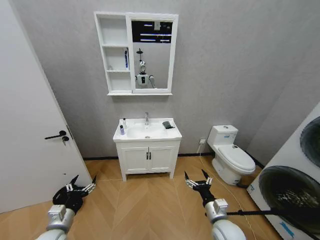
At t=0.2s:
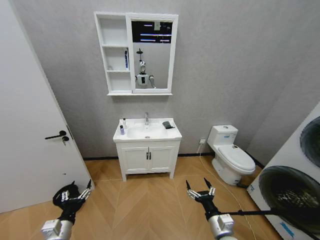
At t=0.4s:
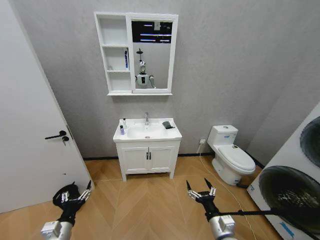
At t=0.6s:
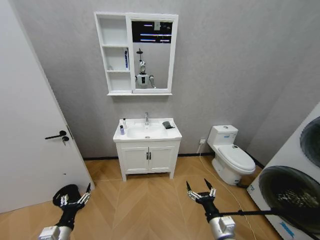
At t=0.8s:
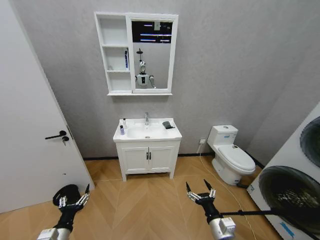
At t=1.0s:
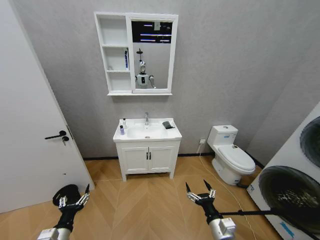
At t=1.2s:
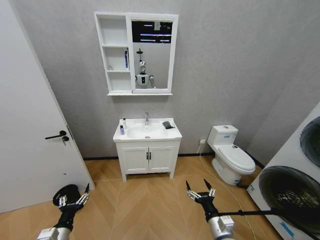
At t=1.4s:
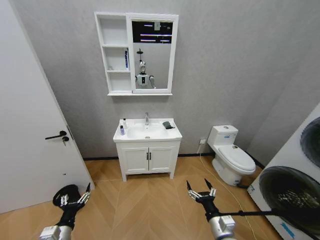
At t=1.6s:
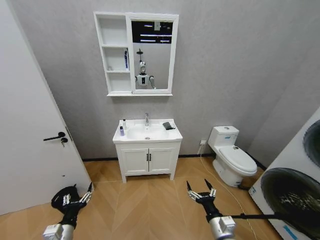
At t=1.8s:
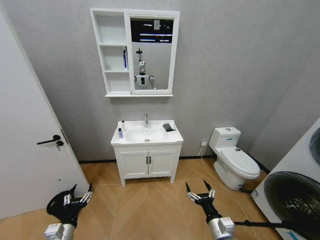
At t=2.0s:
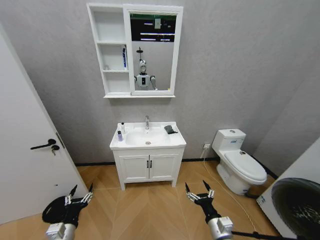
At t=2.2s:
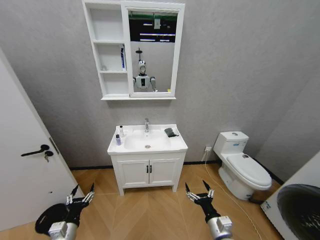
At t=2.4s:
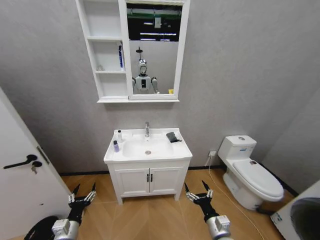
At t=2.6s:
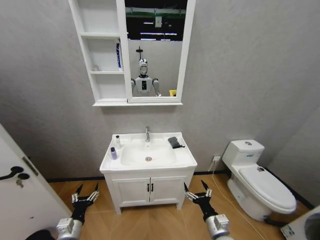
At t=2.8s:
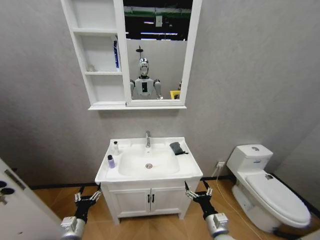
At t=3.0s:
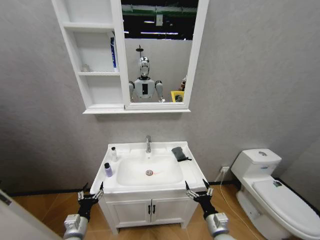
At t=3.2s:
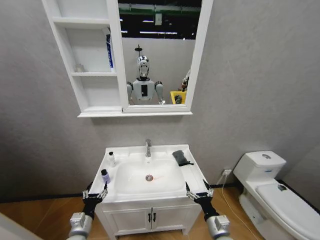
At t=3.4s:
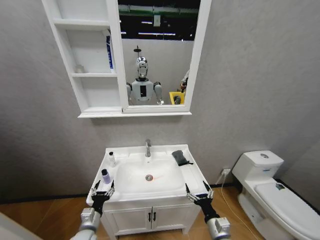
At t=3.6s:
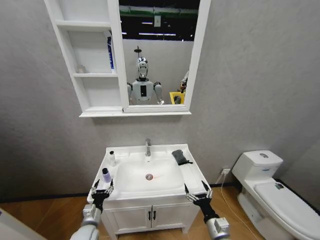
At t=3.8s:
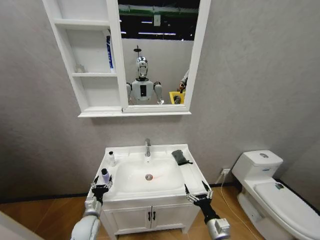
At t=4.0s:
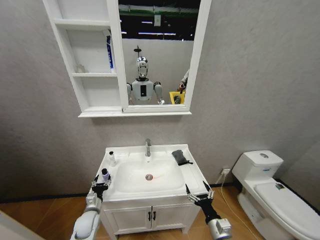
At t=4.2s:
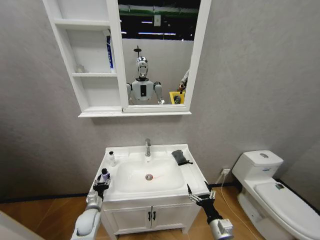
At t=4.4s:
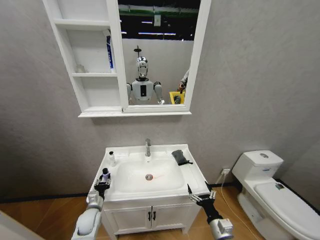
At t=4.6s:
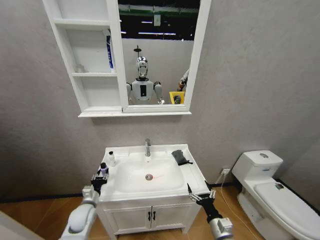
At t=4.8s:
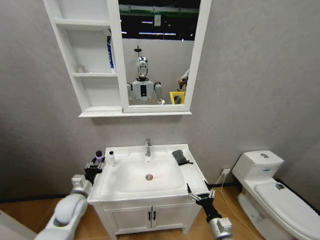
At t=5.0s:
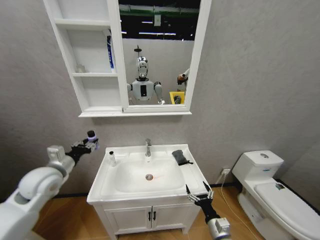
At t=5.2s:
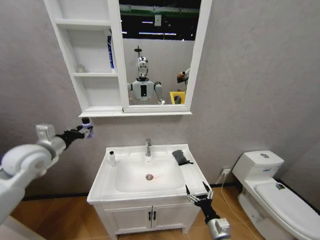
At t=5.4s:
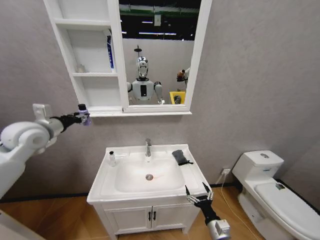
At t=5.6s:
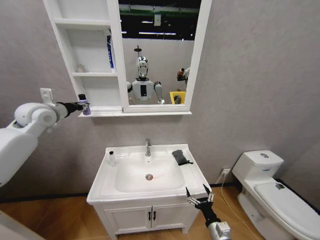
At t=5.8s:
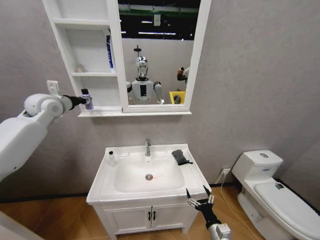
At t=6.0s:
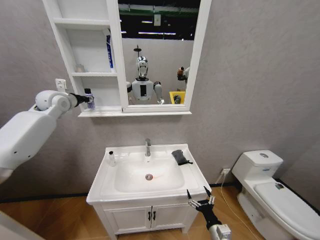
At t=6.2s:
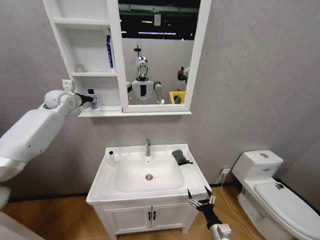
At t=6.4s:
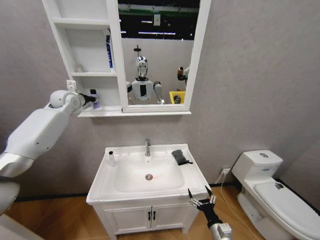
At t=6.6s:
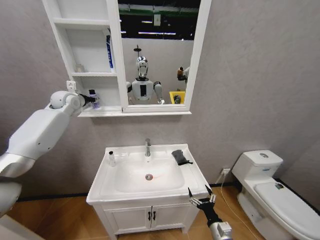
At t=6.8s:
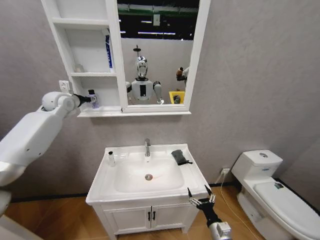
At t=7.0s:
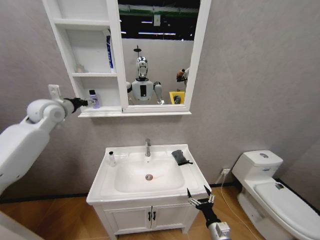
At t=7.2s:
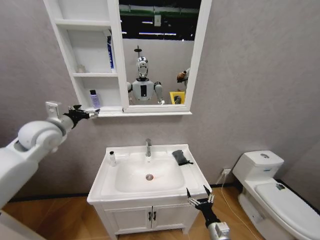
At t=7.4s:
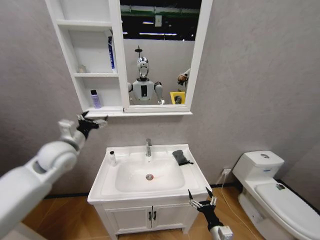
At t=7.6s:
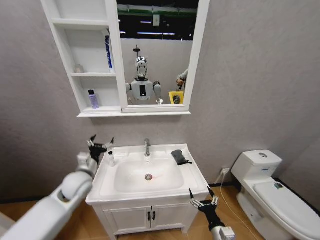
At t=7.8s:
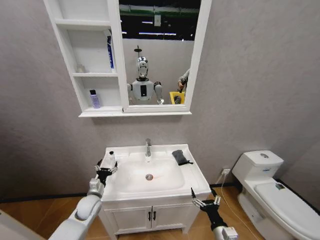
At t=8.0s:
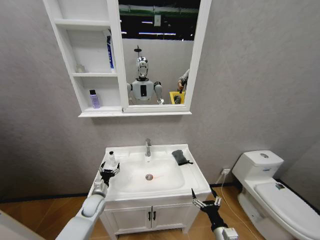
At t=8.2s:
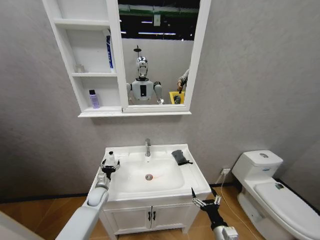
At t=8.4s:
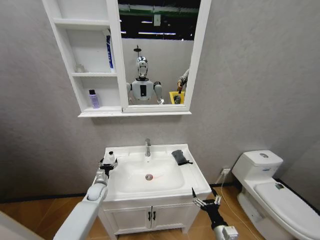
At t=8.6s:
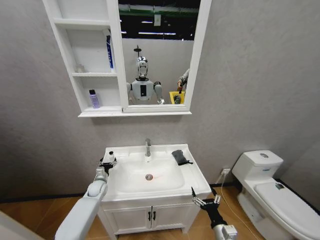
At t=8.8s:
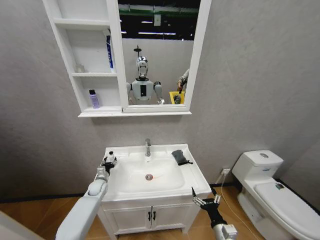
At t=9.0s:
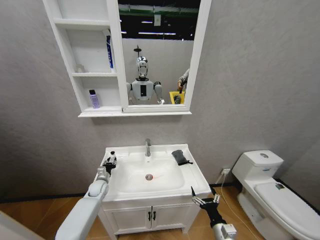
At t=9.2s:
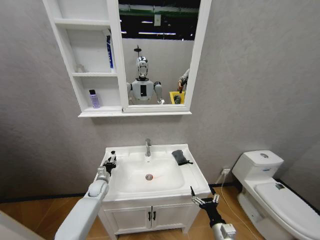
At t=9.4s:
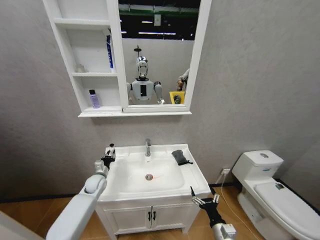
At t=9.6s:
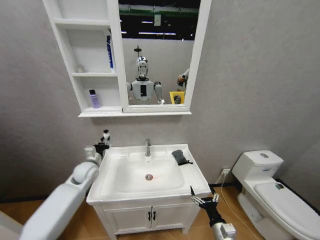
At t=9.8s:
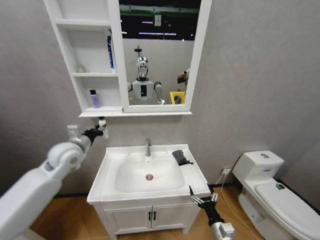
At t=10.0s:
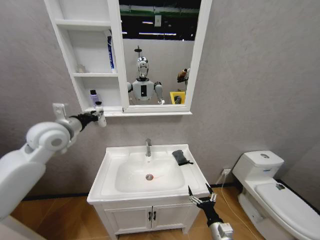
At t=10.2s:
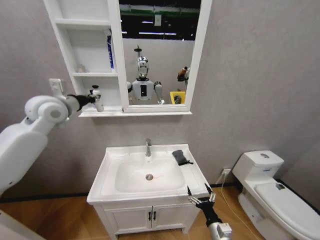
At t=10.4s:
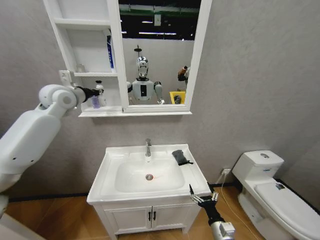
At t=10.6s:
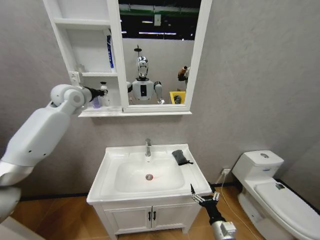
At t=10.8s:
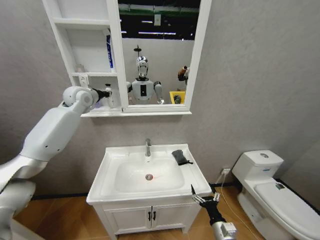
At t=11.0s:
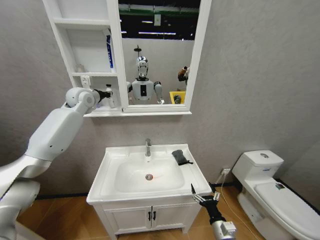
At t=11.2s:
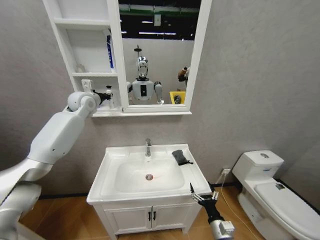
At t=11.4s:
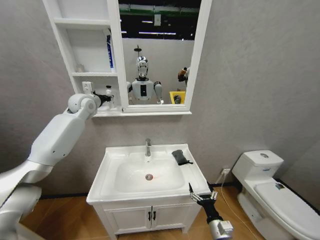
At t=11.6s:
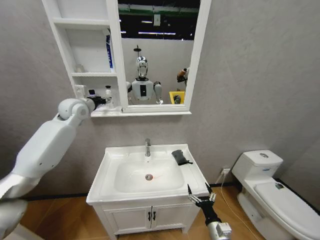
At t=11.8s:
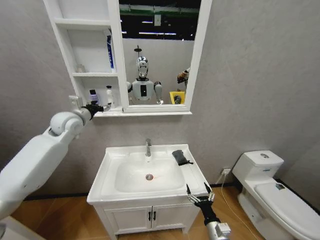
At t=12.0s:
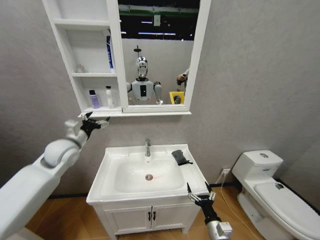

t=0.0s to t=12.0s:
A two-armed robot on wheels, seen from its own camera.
Task of the whole recording: Move facial cleanser and shampoo from washbasin to cabinet, then wipe washbasin with towel.
t=3.0s to t=4.4s: The left gripper moves forward, roughly 10 cm, and closes its fingers.
t=4.4s to t=6.0s: The left gripper goes roughly 50 cm upward.
t=6.0s to t=7.6s: The left gripper travels downward and backward by some 35 cm, and opens up.
t=7.6s to t=9.0s: The left gripper travels downward and forward by some 20 cm, and closes its fingers.
t=9.0s to t=10.4s: The left gripper heads upward, covering some 50 cm.
t=10.4s to t=12.0s: The left gripper goes approximately 15 cm downward, and opens.

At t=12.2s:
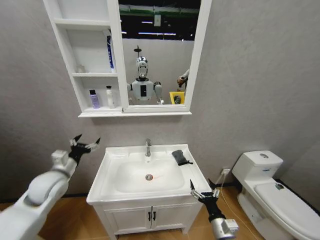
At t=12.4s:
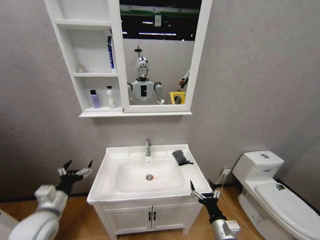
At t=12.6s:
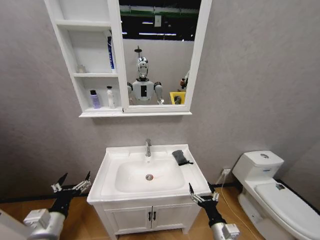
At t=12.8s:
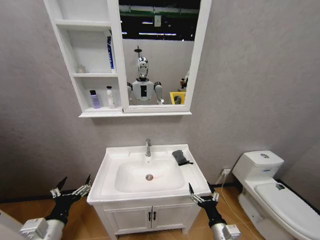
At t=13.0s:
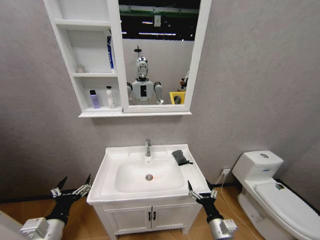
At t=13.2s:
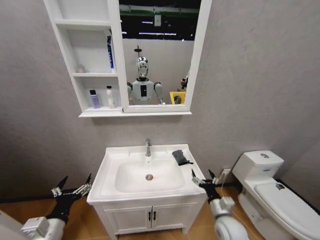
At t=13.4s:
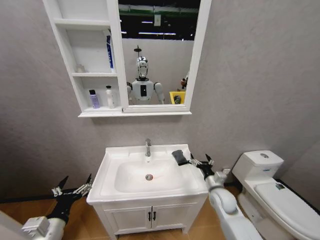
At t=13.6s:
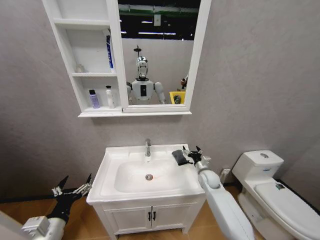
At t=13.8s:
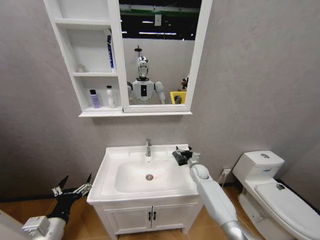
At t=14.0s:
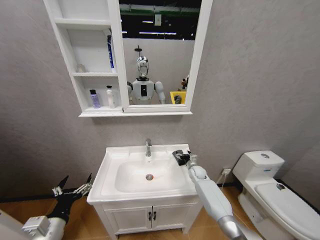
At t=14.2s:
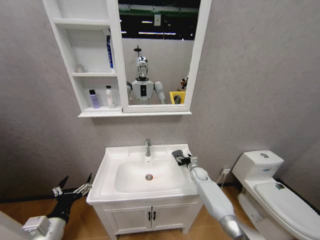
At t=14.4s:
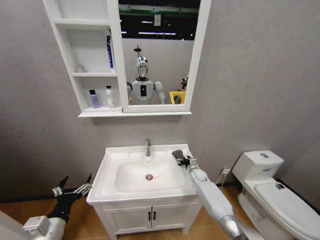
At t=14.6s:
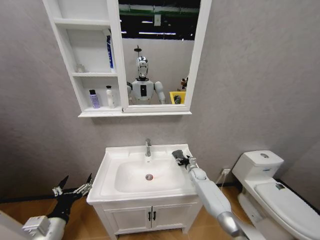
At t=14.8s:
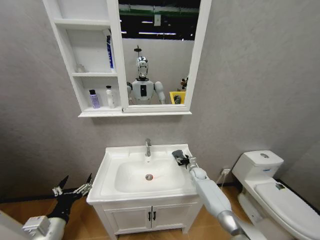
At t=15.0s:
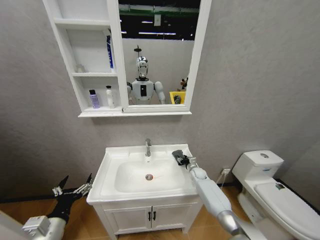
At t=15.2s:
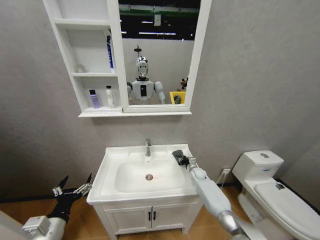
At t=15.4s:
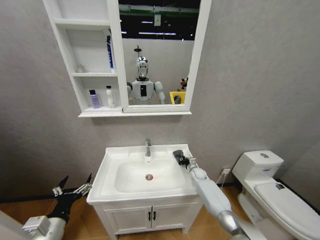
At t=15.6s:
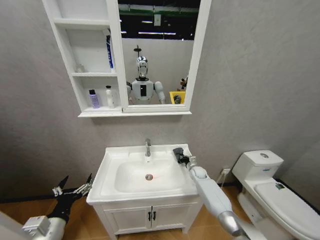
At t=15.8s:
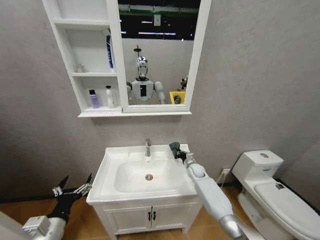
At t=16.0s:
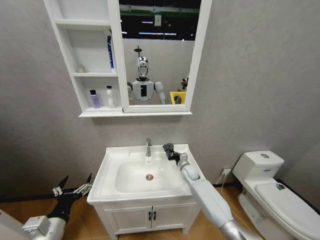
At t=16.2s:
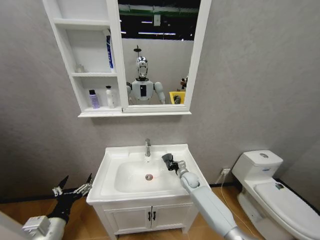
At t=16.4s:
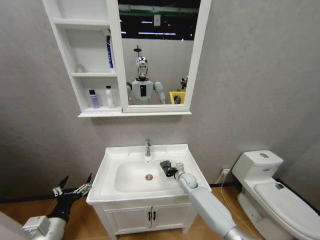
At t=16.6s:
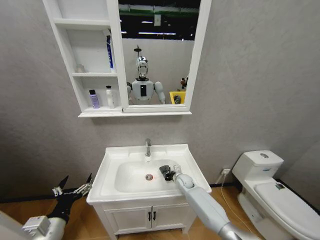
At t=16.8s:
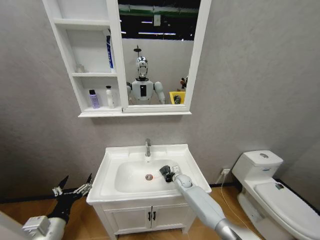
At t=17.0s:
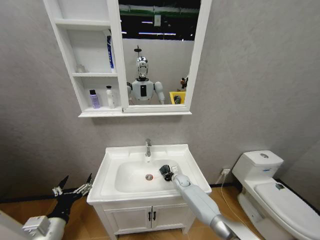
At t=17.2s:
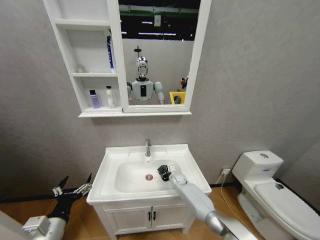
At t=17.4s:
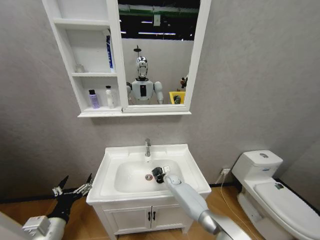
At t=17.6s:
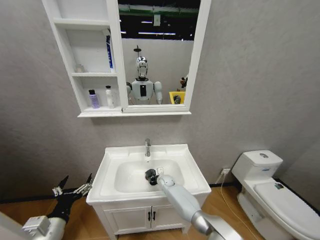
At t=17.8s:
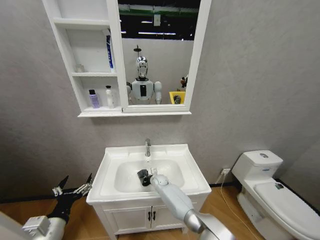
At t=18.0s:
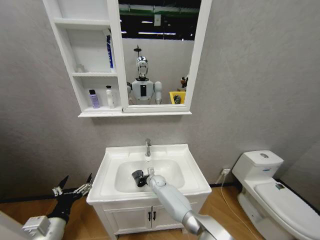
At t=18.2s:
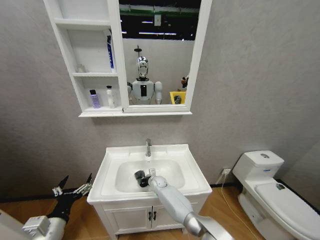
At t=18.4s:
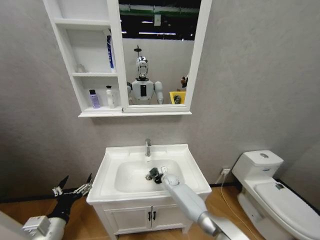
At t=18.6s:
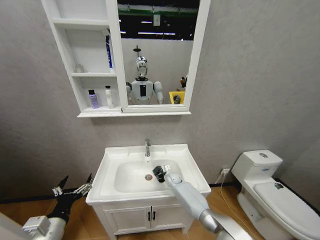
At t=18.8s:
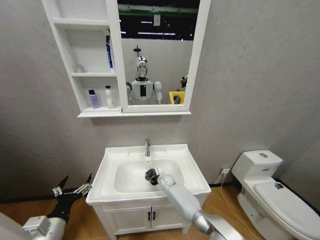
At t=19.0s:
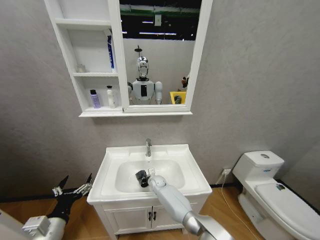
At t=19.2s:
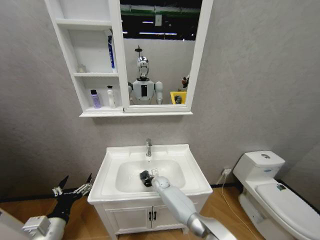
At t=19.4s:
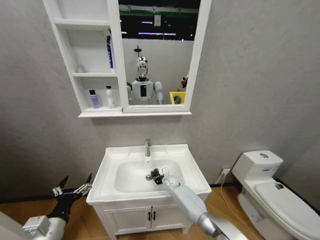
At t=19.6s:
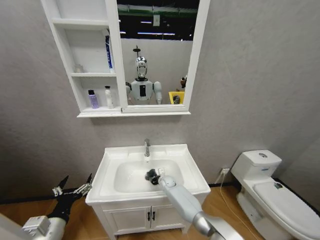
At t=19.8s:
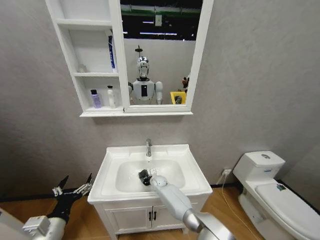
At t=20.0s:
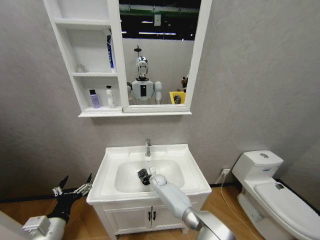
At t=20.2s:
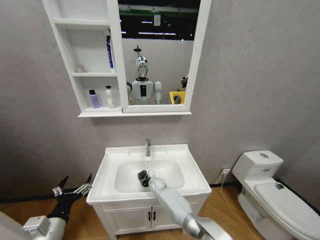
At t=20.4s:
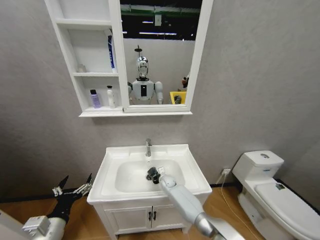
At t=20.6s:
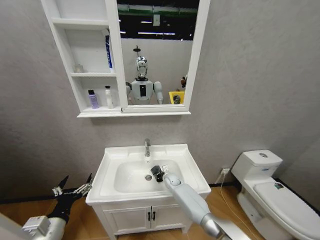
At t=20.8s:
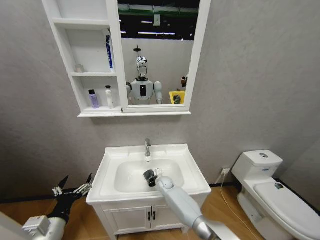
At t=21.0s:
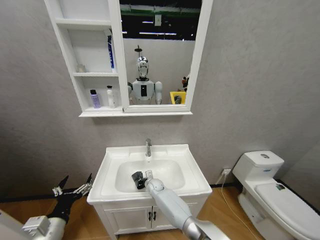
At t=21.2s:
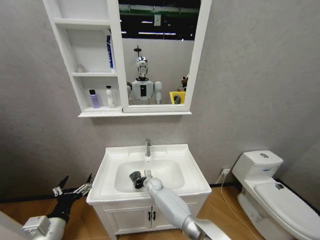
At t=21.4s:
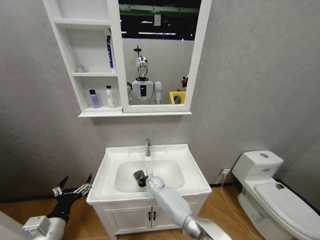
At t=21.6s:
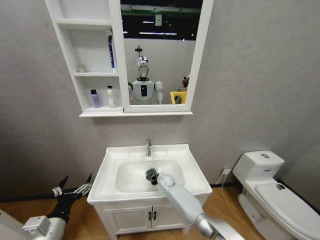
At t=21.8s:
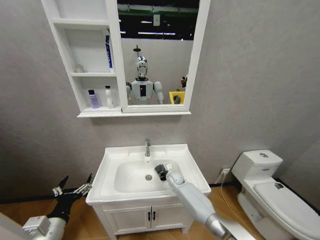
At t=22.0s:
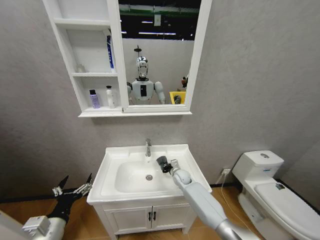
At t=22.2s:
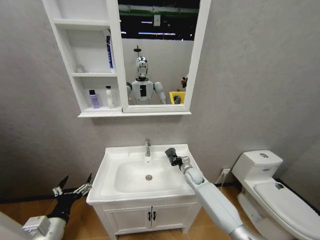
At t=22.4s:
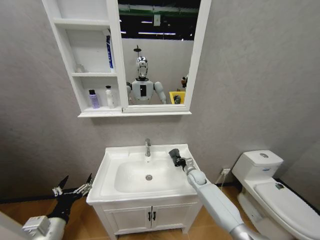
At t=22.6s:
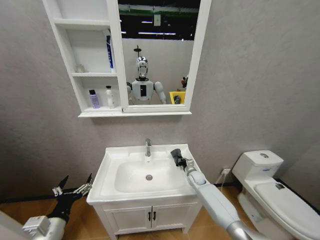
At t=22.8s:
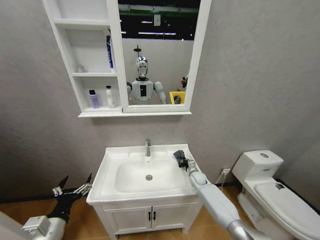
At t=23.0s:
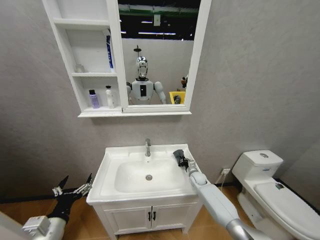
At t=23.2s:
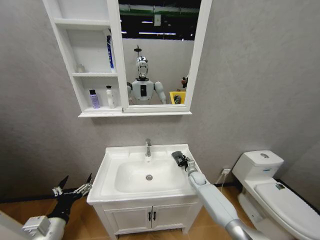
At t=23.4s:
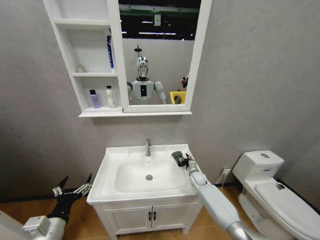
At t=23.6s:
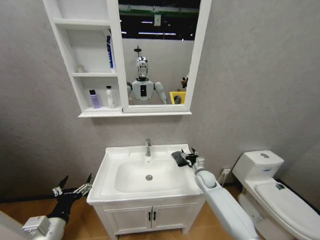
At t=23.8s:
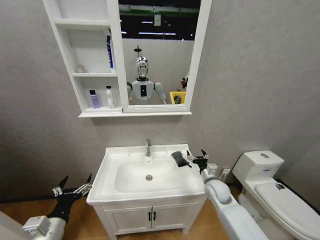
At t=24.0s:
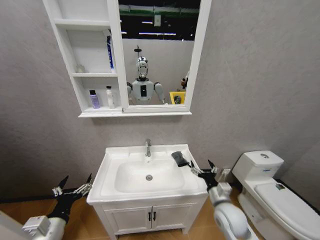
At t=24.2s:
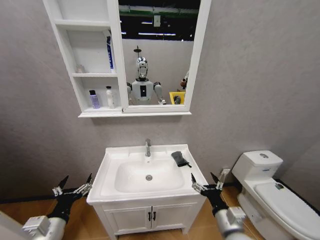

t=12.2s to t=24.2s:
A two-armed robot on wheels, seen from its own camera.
Task of the whole recording: Move facial cleanser and shampoo from washbasin to cabinet, then wipe washbasin with towel.
t=12.2s to t=13.8s: The right gripper travels forward by approximately 30 cm. The left gripper travels backward and downward by some 20 cm.
t=13.8s to t=15.2s: The right gripper shifts some 5 cm downward, and closes up.
t=15.2s to t=16.6s: The right gripper is displaced to the left and backward by roughly 10 cm, and closes.
t=16.6s to t=18.2s: The right gripper moves to the left, some 15 cm.
t=18.2s to t=19.8s: The right gripper moves left and right over some 10 cm, changing direction 3 times.
t=19.8s to t=21.2s: The right gripper moves some 10 cm to the right and comes back.
t=21.2s to t=22.6s: The right gripper moves to the right, about 25 cm.
t=22.6s to t=24.2s: The right gripper moves backward, some 35 cm, and opens.
